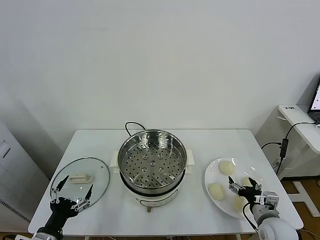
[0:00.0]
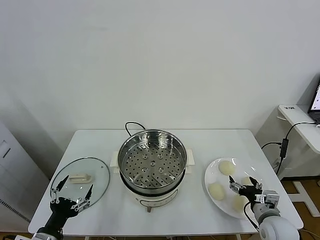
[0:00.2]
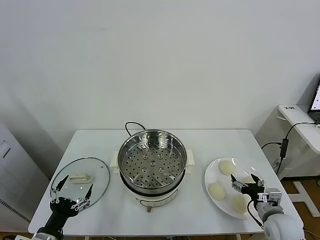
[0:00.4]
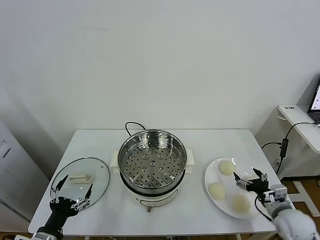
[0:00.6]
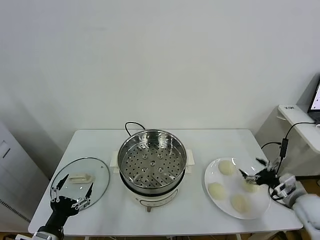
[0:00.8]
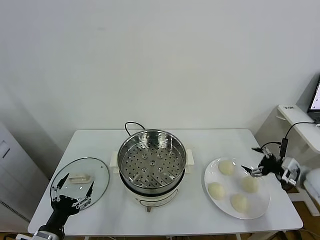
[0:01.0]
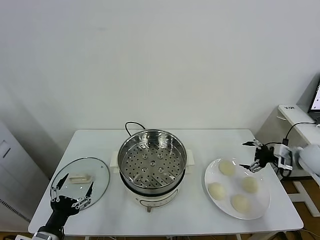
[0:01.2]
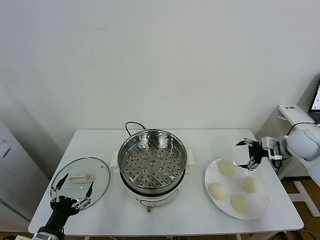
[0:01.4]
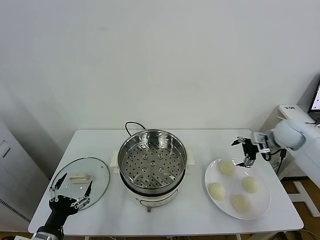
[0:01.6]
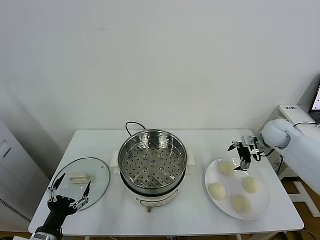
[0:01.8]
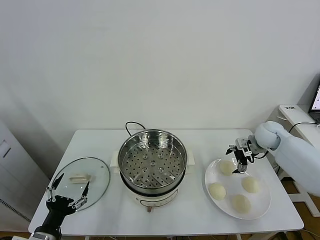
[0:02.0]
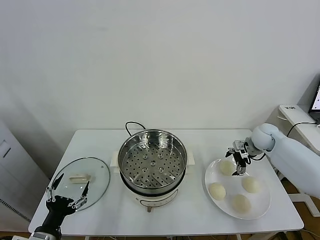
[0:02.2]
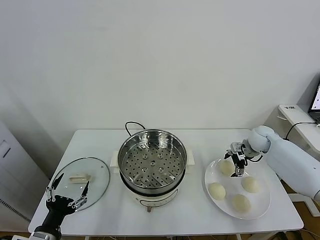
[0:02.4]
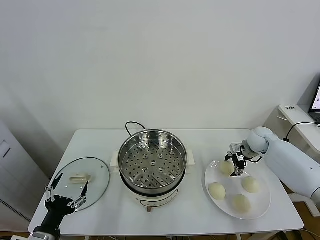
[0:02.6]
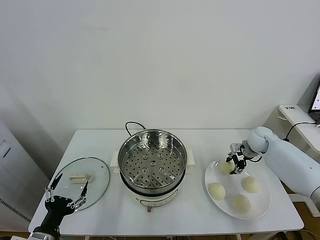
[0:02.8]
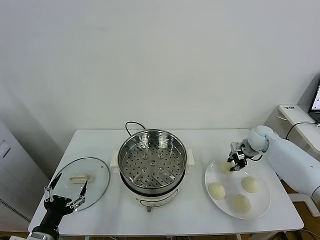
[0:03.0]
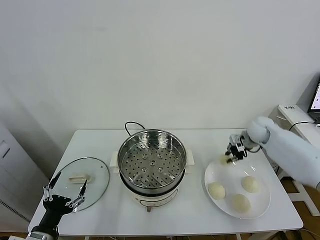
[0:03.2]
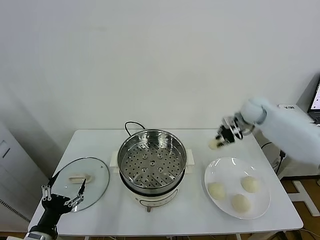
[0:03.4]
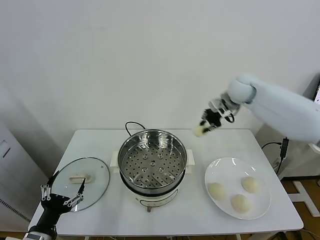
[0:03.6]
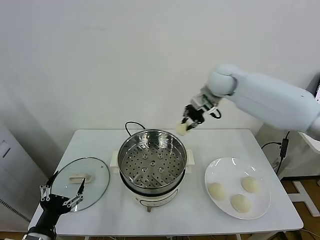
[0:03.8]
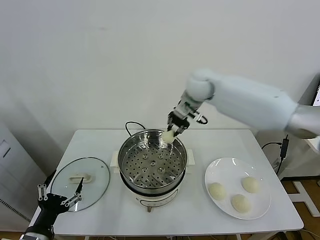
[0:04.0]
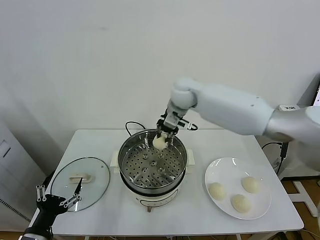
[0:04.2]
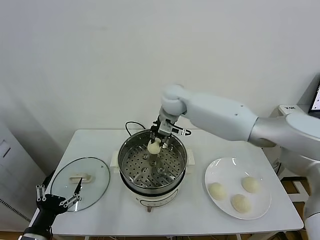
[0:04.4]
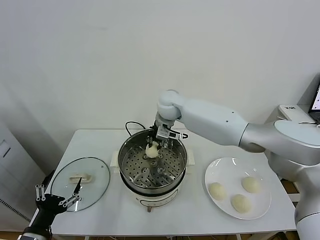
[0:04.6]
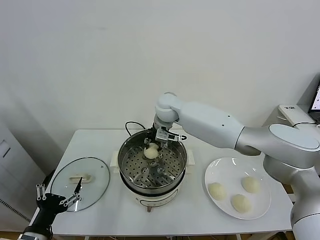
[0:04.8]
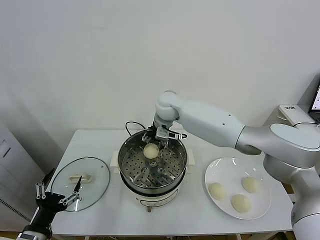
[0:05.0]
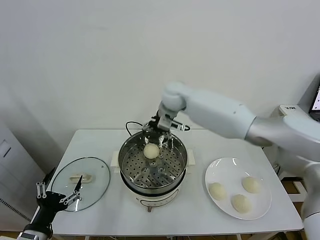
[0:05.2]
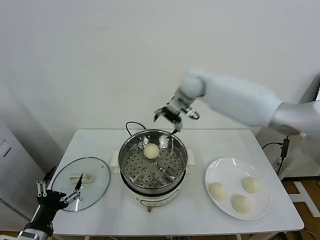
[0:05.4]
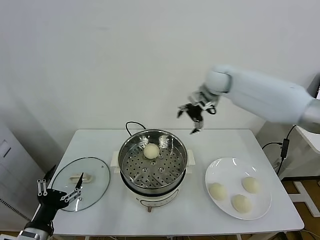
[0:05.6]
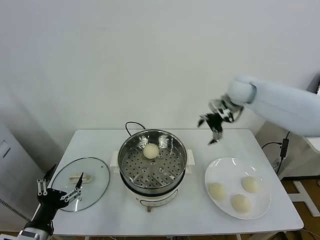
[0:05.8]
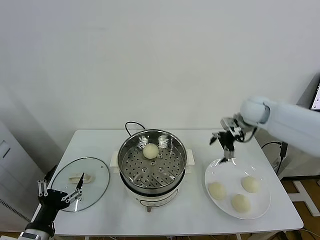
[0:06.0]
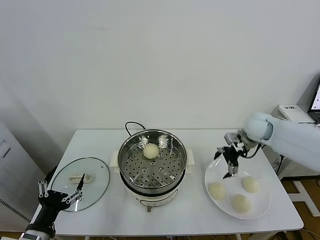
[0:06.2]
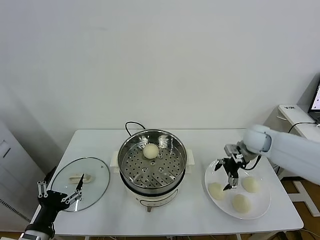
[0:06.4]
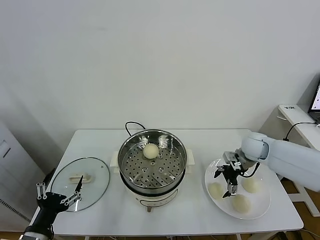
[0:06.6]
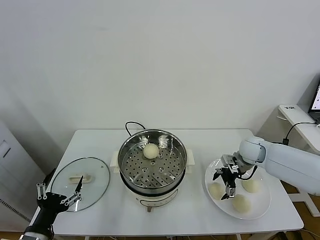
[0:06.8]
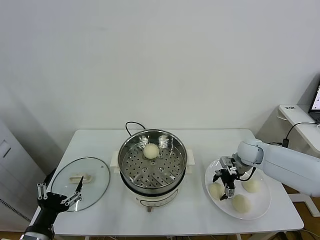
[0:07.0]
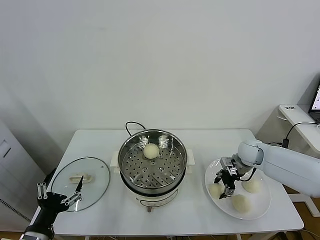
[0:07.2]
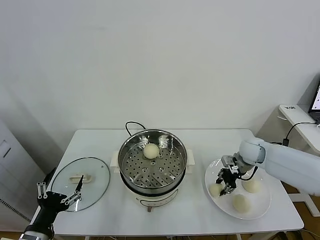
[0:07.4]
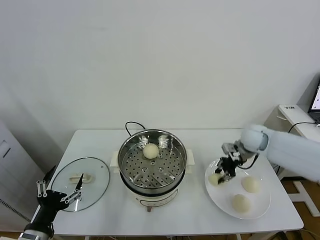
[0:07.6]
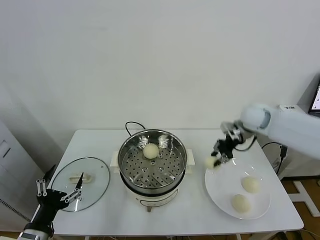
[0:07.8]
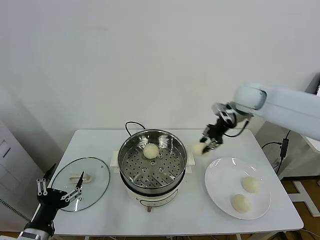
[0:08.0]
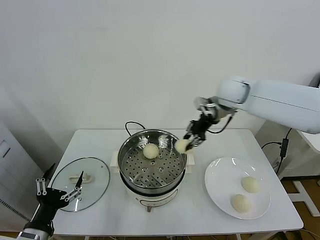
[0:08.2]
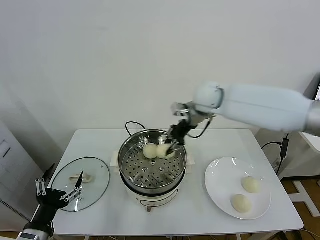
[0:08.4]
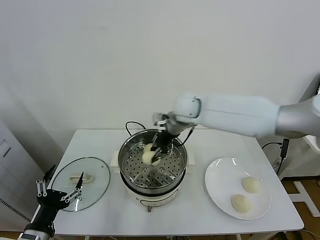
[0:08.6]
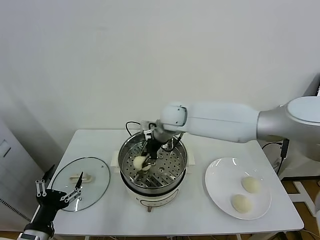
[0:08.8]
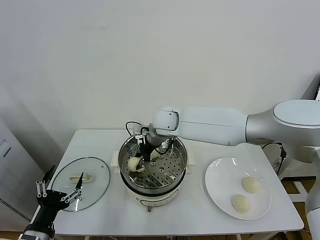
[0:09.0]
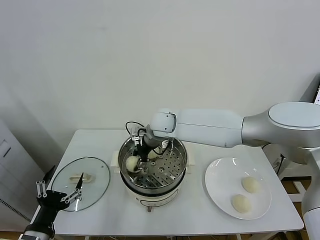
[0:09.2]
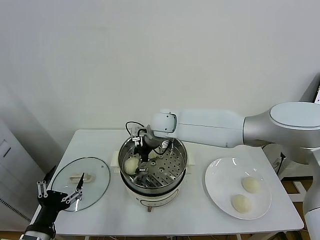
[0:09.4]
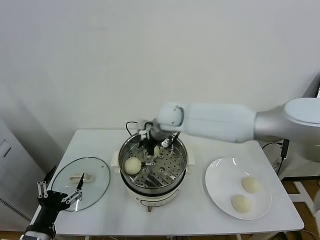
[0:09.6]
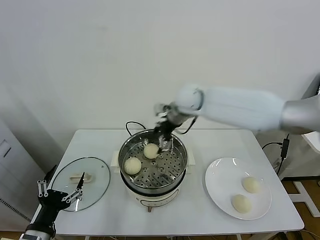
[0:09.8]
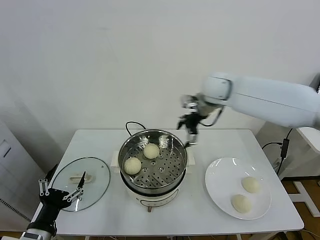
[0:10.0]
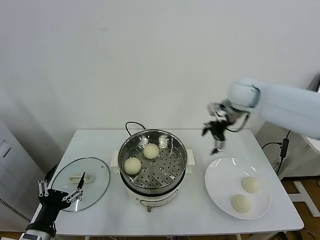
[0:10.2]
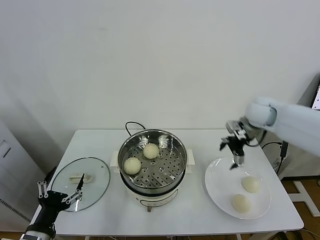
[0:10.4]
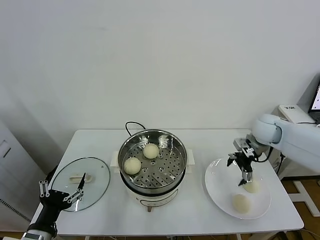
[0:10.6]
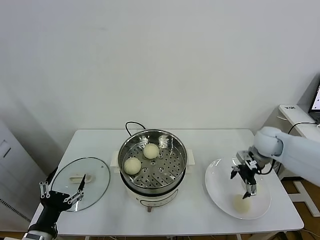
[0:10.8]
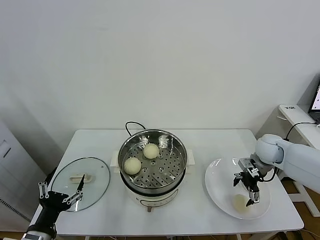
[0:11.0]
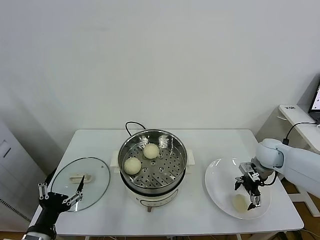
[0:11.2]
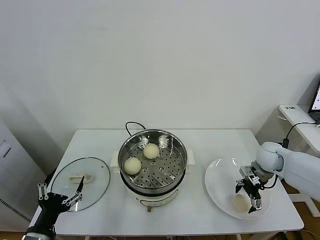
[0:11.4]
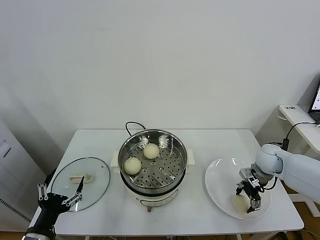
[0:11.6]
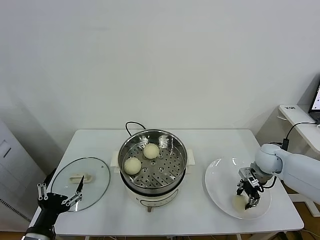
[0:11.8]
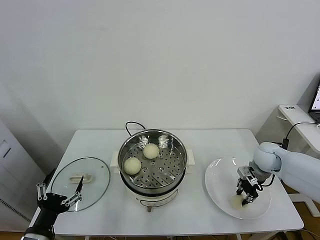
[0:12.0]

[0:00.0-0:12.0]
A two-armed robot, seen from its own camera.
Task of the whole recording: take steamed baozi put them in steamer.
Step, 0:00.0 to 0:02.6: Grasp the baozi in the plate with right gripper.
Step, 0:03.0 to 0:05.0: Place the baozi on the steamer with right gripper.
Step, 0:05.2 to 0:07.0: Grasp the baozi in the plate with right gripper.
Step, 0:07.2 to 0:09.4: Place the baozi on the steamer with right gripper.
Step, 0:09.6 to 0:11.6: Grasp the baozi in the plate with right gripper.
0:01.6 to 0:03.0: The right gripper goes some 5 cm downward, and closes.
0:03.0 to 0:04.4: The right gripper is displaced to the left by about 35 cm.
0:04.4 to 0:06.0: The right gripper goes approximately 30 cm to the right, and opens its fingers.
0:06.0 to 0:07.6: The right gripper moves some 15 cm downward and comes back, and closes its fingers.
0:07.6 to 0:09.0: The right gripper moves to the left, roughly 30 cm.
0:09.0 to 0:10.4: The right gripper is displaced to the right by about 35 cm, and opens.
0:10.4 to 0:12.0: The right gripper heads downward and backward, covering some 15 cm, and closes up.

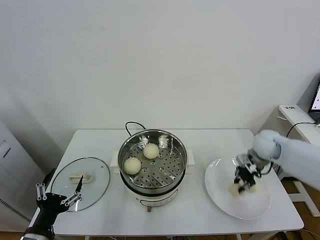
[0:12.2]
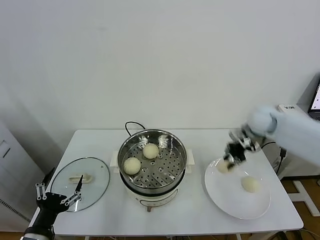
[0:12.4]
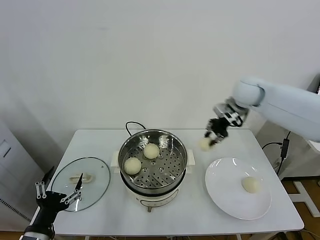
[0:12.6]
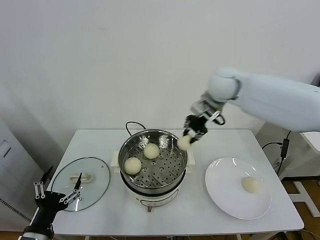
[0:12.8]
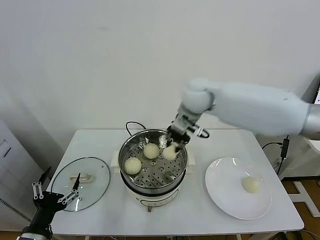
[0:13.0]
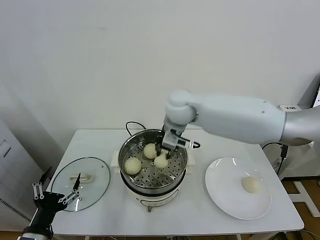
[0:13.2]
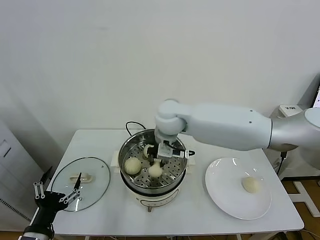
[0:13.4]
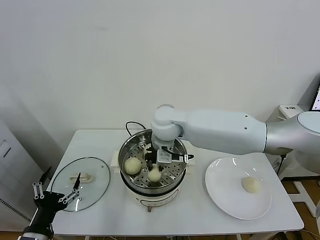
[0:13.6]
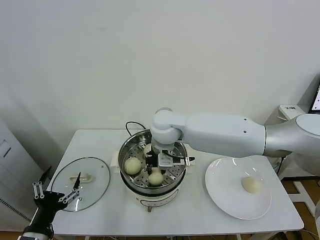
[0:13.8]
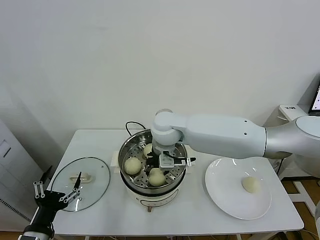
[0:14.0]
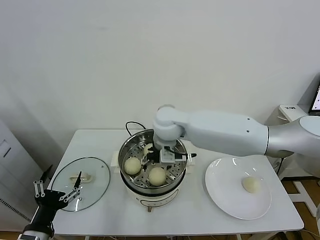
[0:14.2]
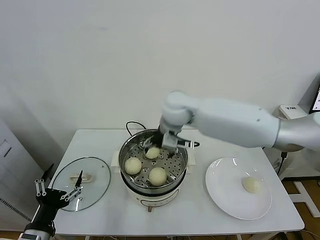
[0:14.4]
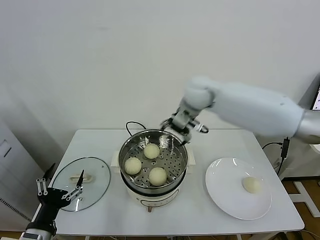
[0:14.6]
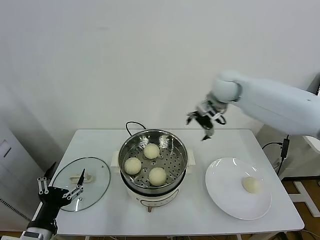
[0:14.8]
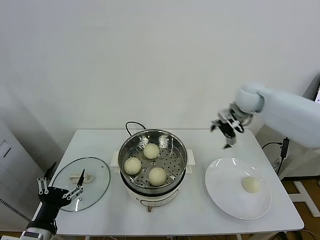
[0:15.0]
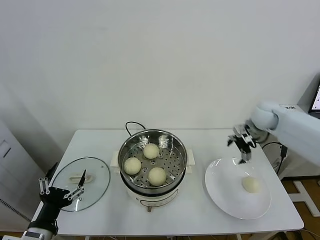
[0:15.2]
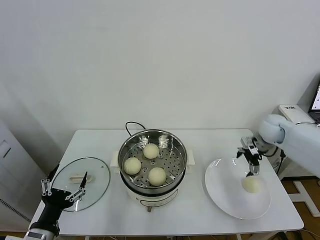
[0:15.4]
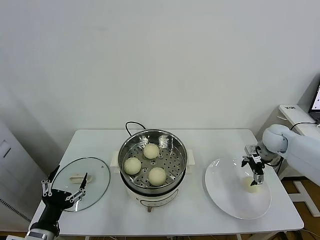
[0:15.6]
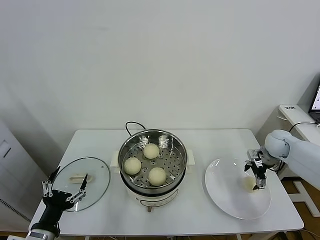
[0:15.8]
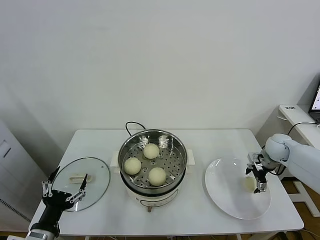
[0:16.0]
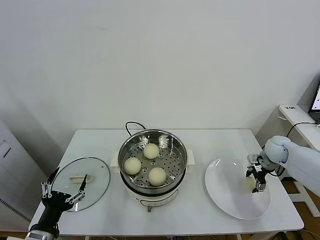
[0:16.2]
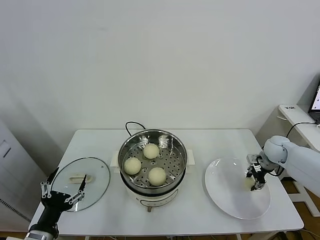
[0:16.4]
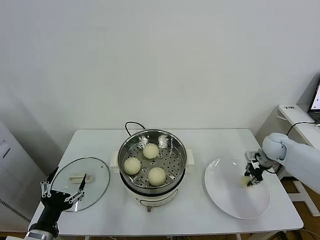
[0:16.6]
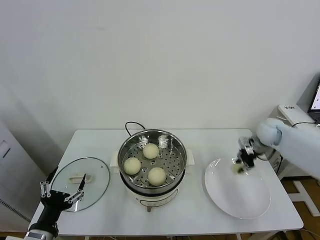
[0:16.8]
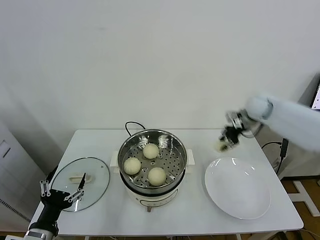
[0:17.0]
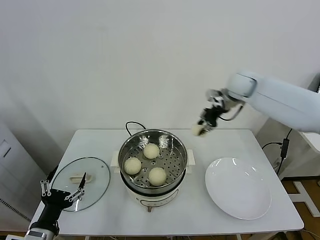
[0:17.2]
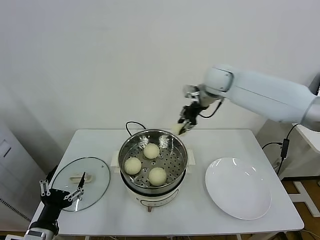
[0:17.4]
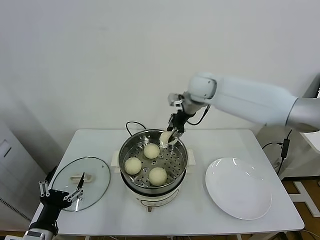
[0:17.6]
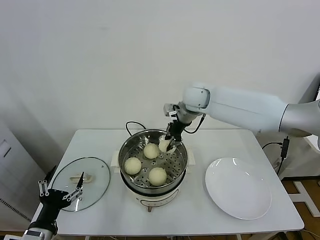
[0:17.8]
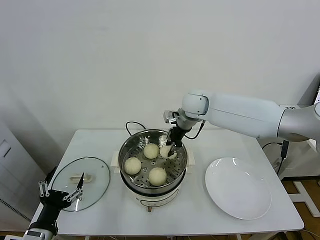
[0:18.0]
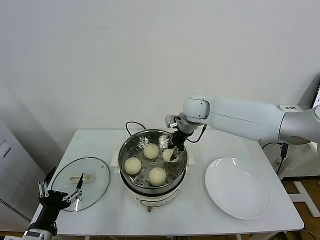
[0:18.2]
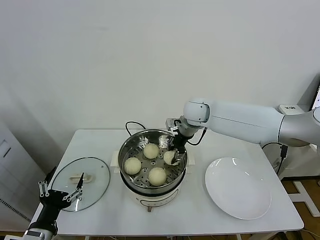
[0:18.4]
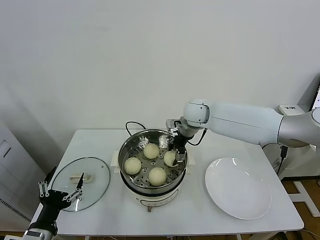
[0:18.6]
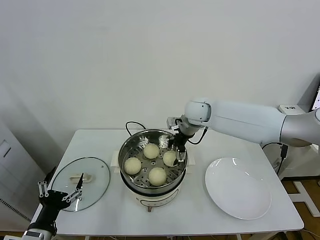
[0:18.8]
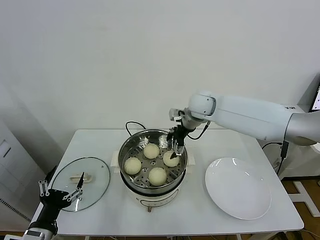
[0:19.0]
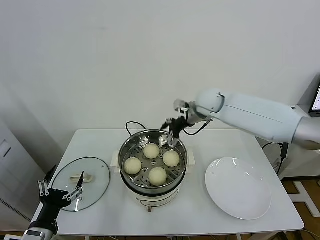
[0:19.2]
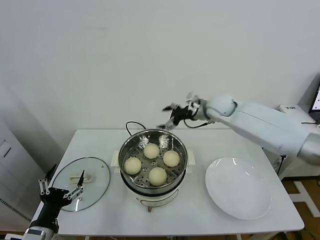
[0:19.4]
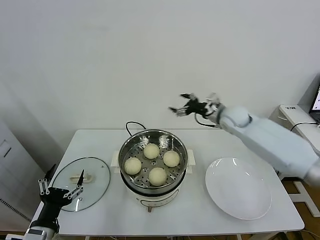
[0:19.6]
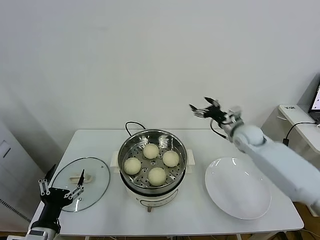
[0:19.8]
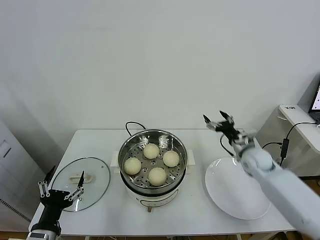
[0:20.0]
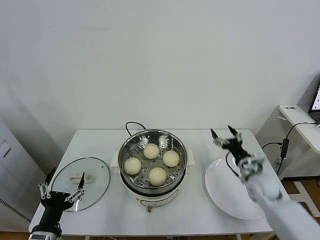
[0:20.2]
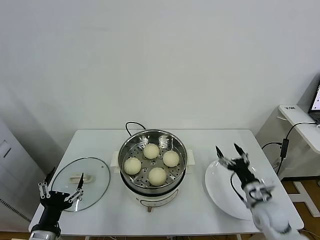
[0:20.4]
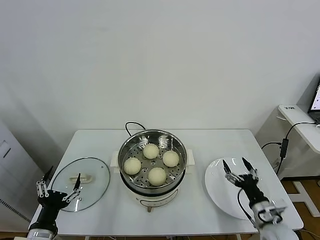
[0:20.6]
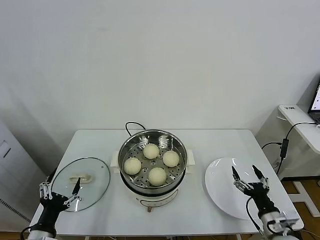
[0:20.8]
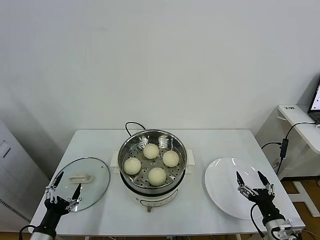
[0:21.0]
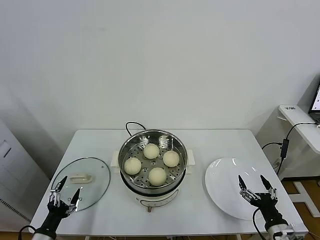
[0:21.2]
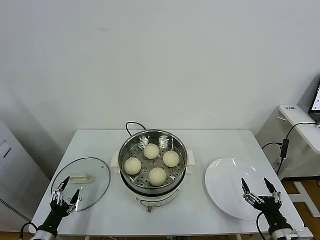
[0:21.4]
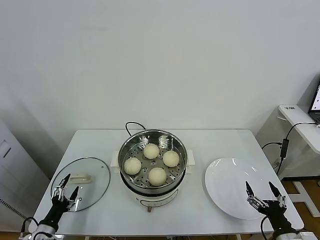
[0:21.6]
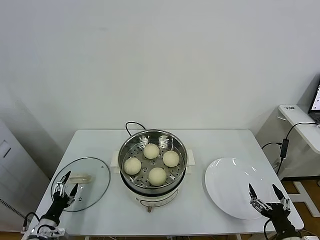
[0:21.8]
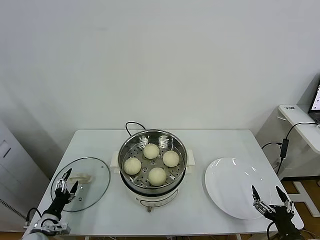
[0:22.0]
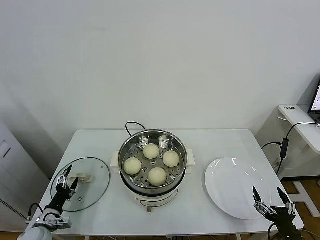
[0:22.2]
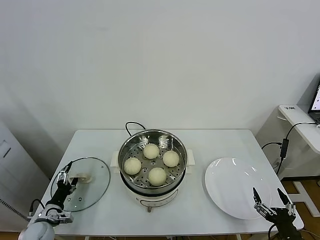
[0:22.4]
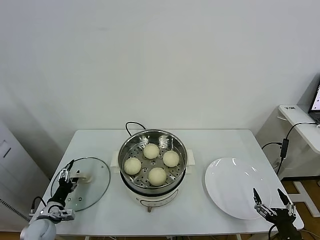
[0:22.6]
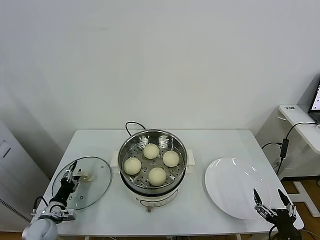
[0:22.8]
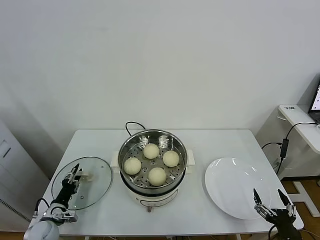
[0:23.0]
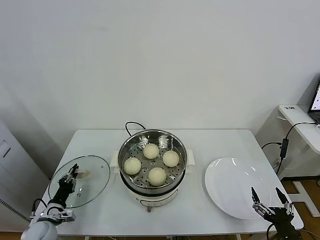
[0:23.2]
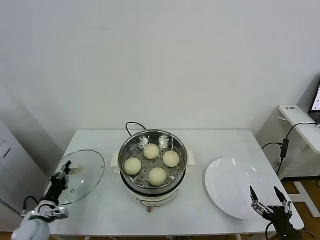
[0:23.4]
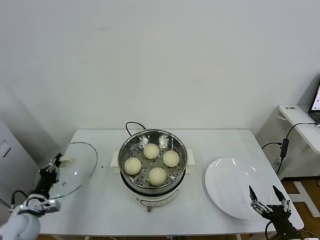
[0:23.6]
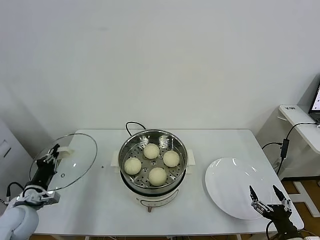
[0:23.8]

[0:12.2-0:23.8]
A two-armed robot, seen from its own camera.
Task of the whole recording: take steamed baozi put them in steamer.
Step, 0:12.2 to 0:14.2: Place the baozi on the steamer with right gripper.
Step, 0:14.4 to 0:16.2: Grasp the baozi in the plate with right gripper.
Step, 0:16.4 to 0:18.8: Place the baozi on the steamer with right gripper.
Step, 0:19.0 to 0:23.4: Grasp the pot lid with left gripper.
0:12.2 to 0:13.6: The right gripper moves to the left, roughly 35 cm.
0:13.6 to 0:15.0: The right gripper is displaced to the right by some 30 cm, and opens its fingers.
0:15.0 to 0:16.6: The right gripper shifts roughly 20 cm downward and to the right, and closes up.
0:16.6 to 0:18.0: The right gripper travels to the left and upward by roughly 35 cm.
0:18.0 to 0:19.4: The right gripper is displaced to the right by about 10 cm, and opens.
0:19.4 to 0:21.0: The right gripper shifts approximately 50 cm backward, downward and to the right, while the left gripper travels downward by roughly 10 cm.
0:21.0 to 0:22.4: The right gripper heads backward, covering some 5 cm. The left gripper heads forward, downward and to the left, covering some 15 cm.
0:22.4 to 0:23.8: The left gripper is displaced upward by some 10 cm, and closes.
